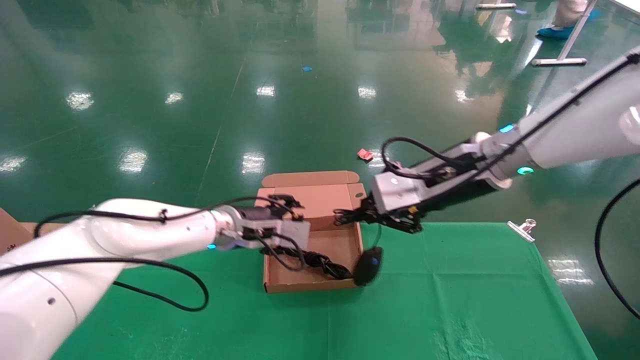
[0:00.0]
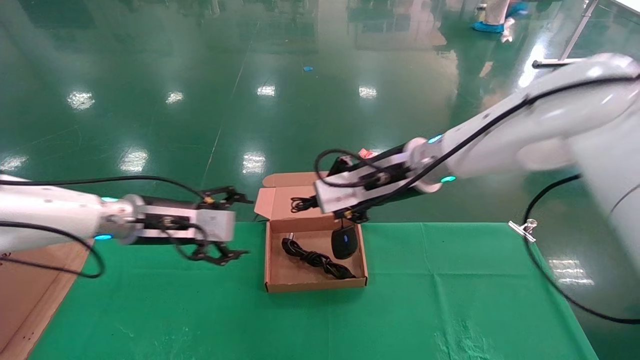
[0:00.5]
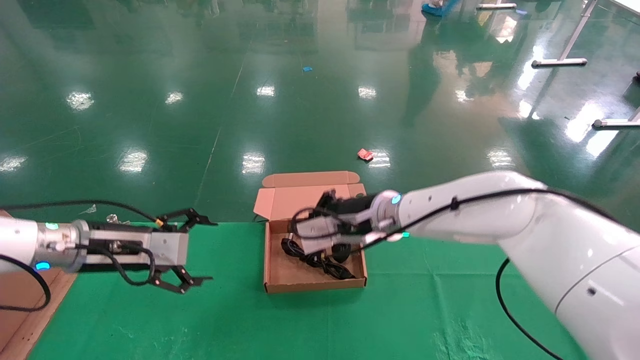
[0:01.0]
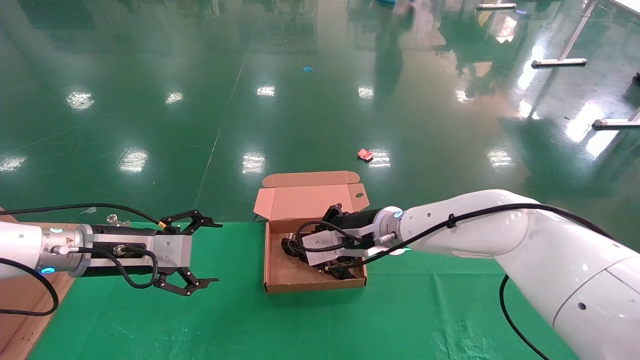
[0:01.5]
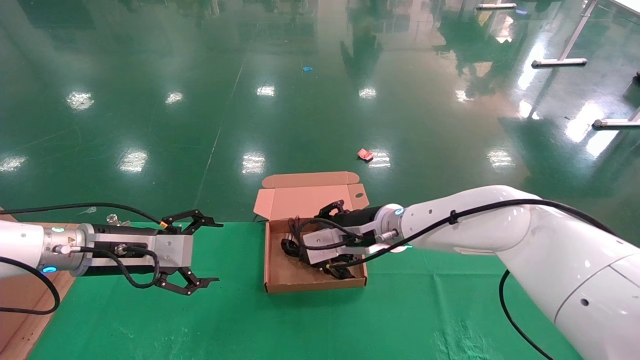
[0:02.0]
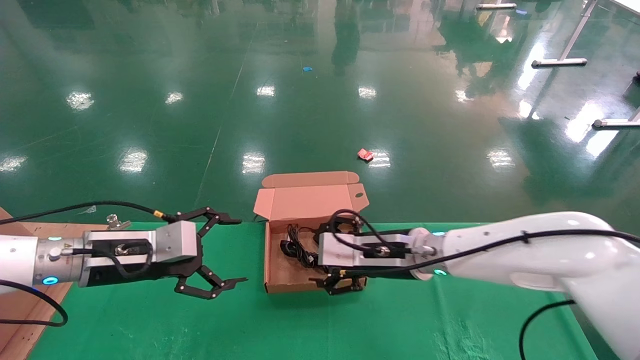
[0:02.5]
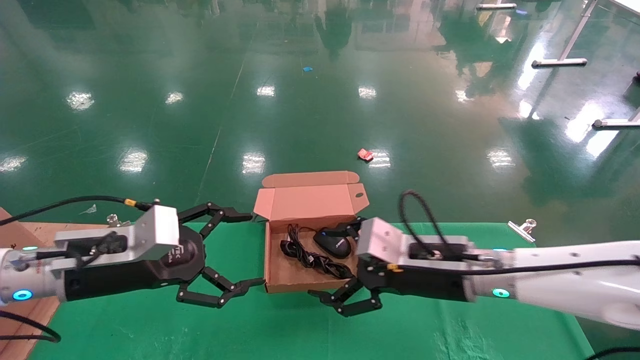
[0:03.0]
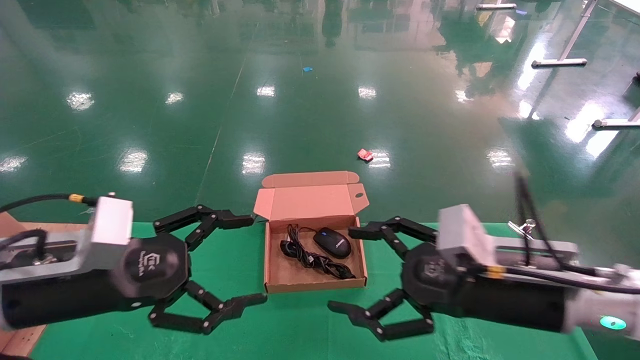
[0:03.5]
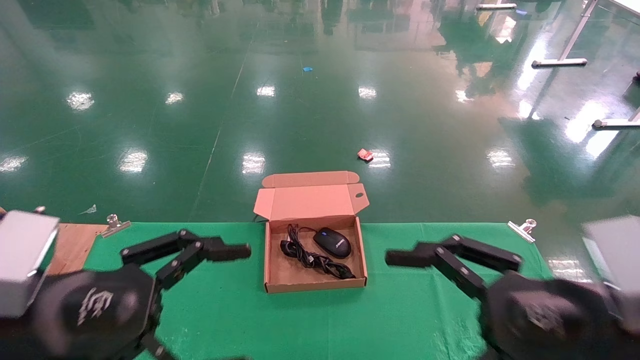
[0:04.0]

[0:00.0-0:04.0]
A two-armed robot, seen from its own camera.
0:00.0 to 0:02.0: The right gripper heads downward, to the left and forward, covering roughly 15 cm; the left gripper is displaced to the left and backward by approximately 20 cm, and opens.
0:02.0 to 0:04.0: The right gripper is displaced backward and to the right by about 30 cm, and opens up, while the left gripper is displaced backward by about 20 cm.

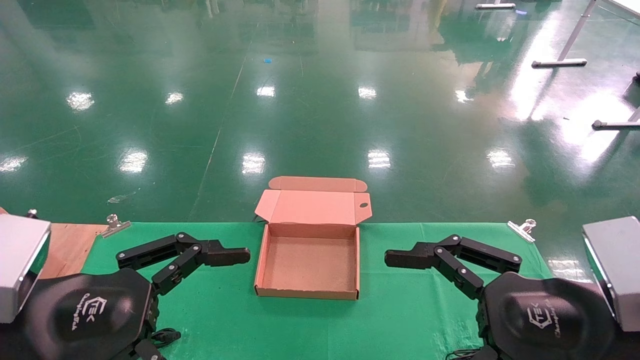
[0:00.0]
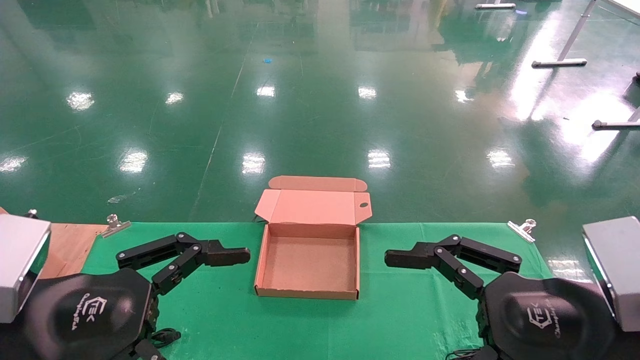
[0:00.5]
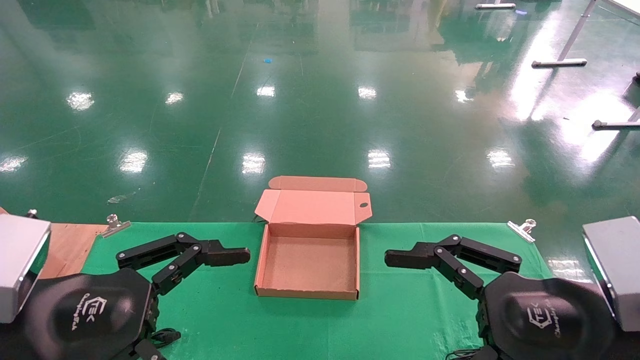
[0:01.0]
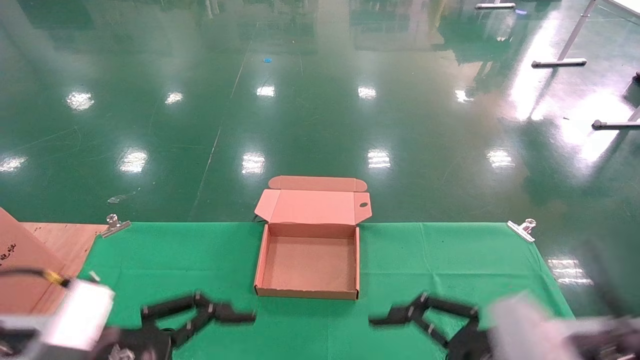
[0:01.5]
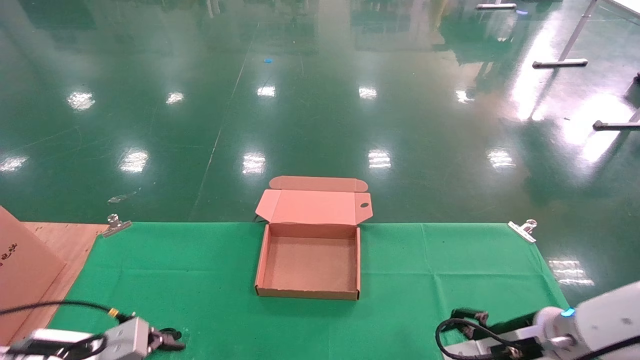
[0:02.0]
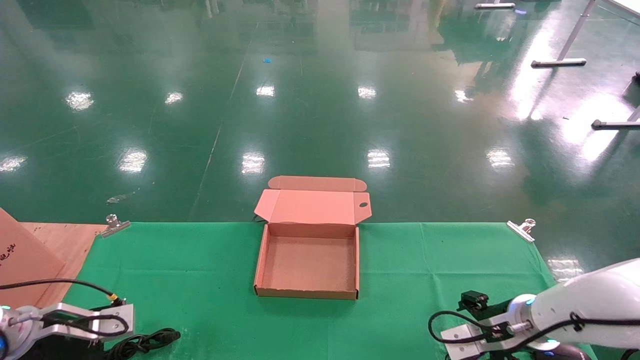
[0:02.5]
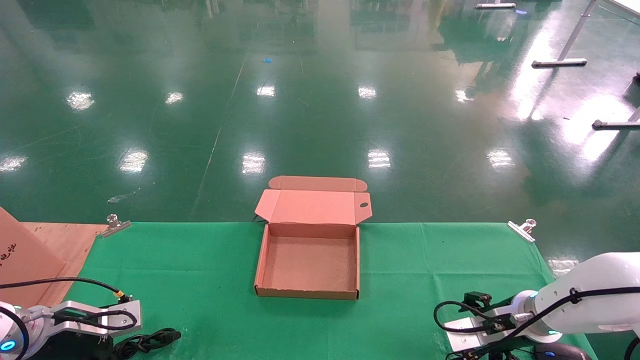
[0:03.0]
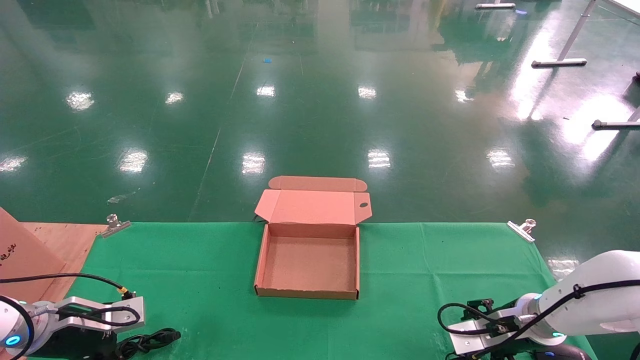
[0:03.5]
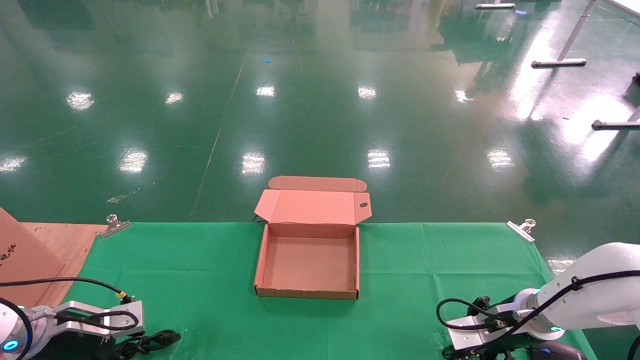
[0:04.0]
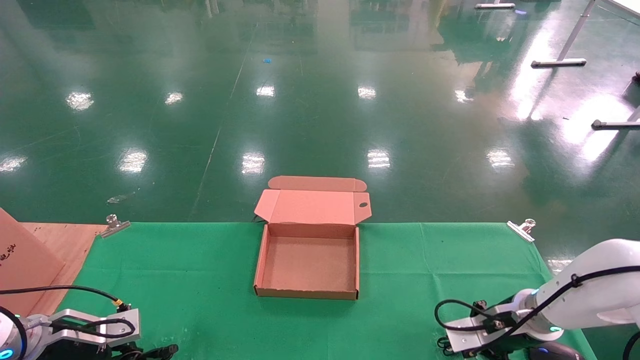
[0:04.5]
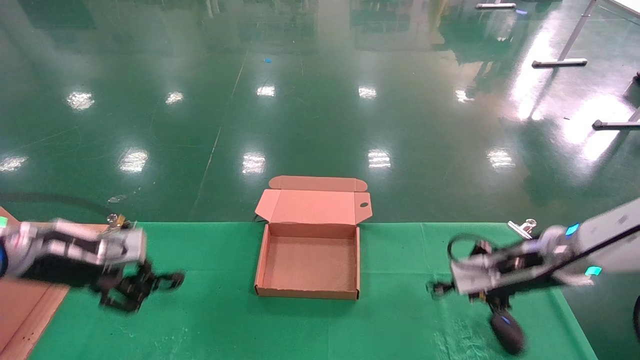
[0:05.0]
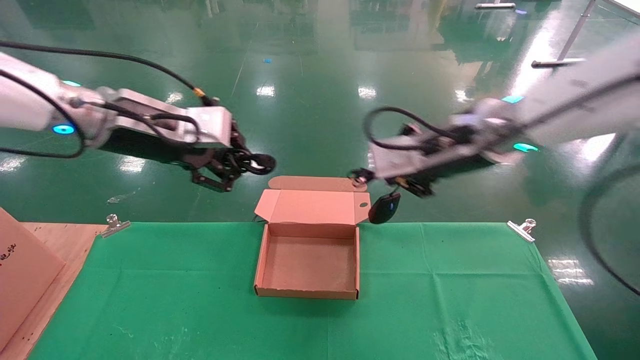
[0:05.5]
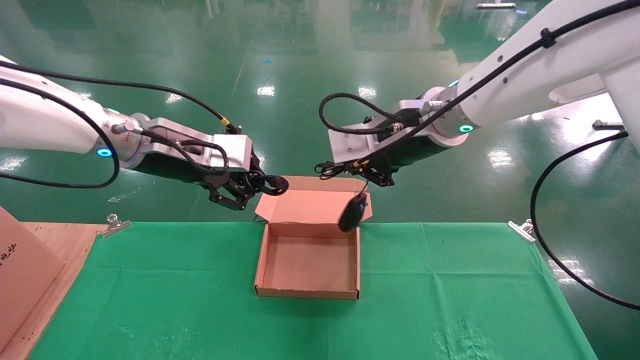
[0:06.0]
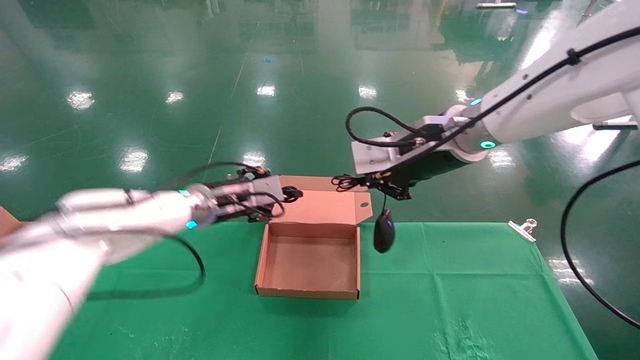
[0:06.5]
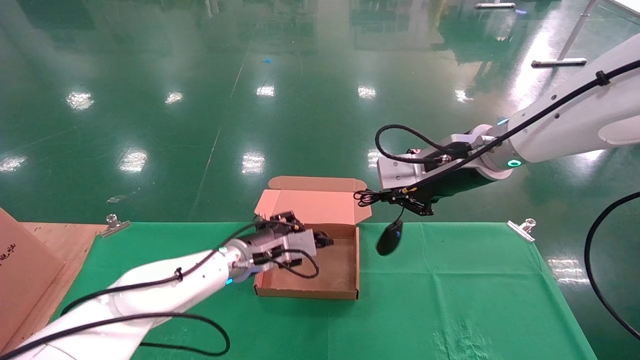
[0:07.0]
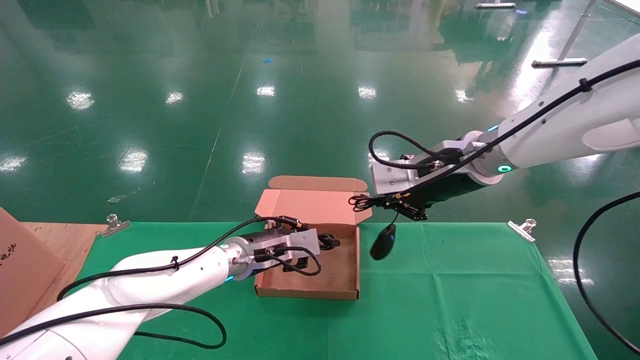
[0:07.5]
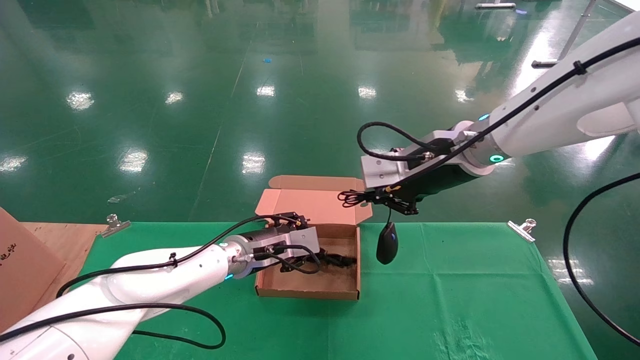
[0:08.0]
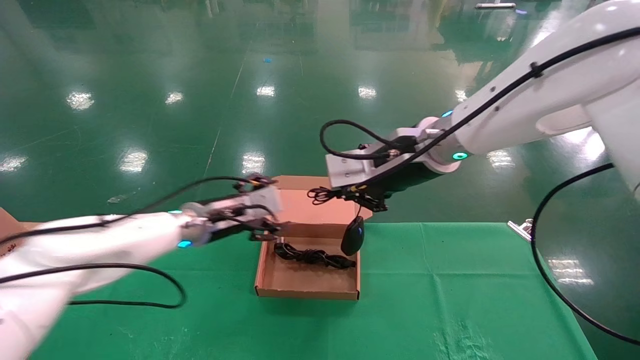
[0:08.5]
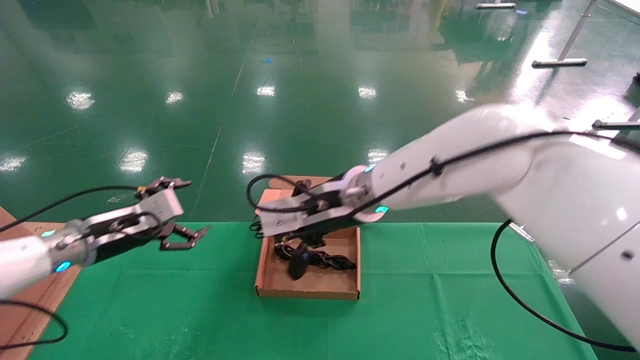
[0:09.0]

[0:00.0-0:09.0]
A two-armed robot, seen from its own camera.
Step, 0:01.5 to 0:05.5: Grab and lift both the mouse and power cord from the accessory packaging area at the same time.
0:00.0 to 0:02.0: The right gripper moves forward and downward, some 20 cm, while the left gripper travels downward, forward and to the left by roughly 20 cm.
0:02.0 to 0:04.5: The right gripper goes roughly 10 cm forward, and closes up. Meanwhile the left gripper heads forward and to the left, covering some 10 cm, and closes.
0:04.5 to 0:07.0: The right gripper travels upward and to the left by some 25 cm; the left gripper goes about 30 cm to the right, and travels upward and back again, roughly 30 cm each way.
0:07.0 to 0:09.0: Both grippers move to the left, about 20 cm. The left gripper opens up.

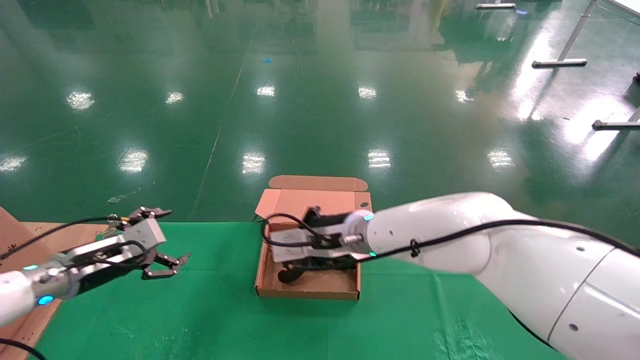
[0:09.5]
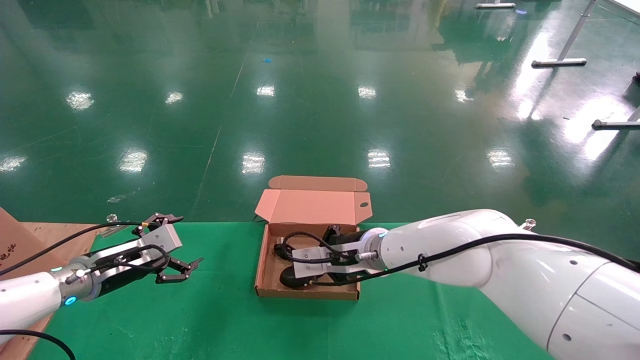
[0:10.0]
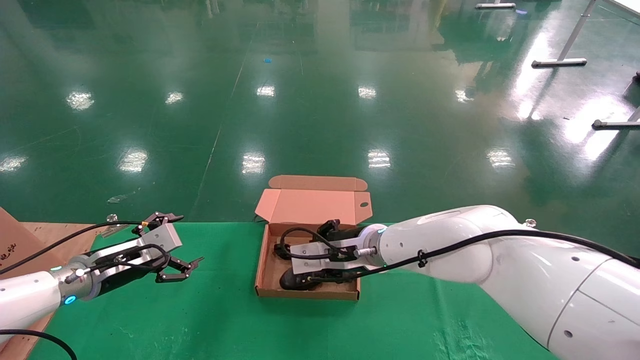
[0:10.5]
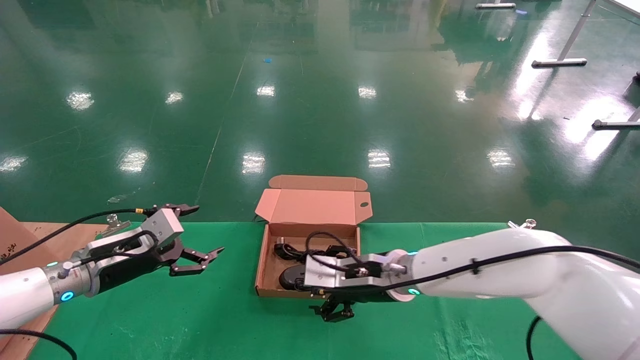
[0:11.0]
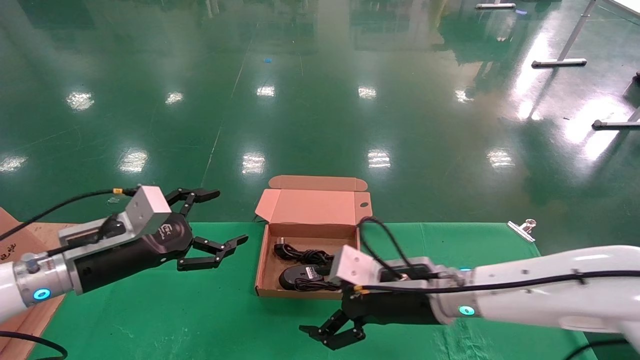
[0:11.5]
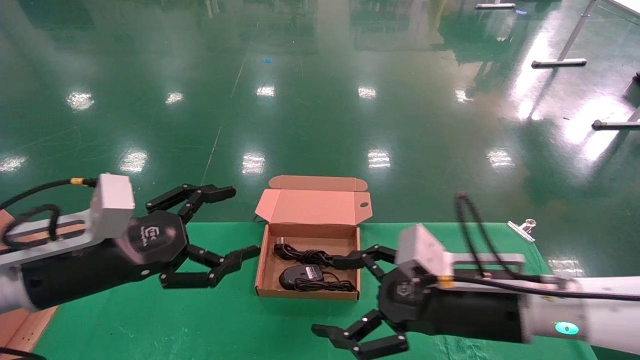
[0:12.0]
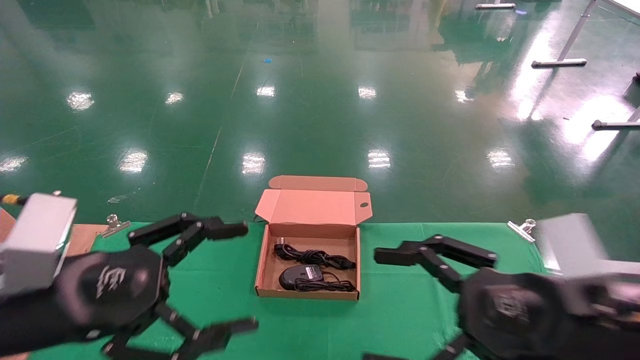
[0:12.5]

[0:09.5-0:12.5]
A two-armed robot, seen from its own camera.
Step, 0:09.5 to 0:11.5: Place the mouse and power cord into the box.
0:09.5 to 0:11.0: The right gripper goes about 10 cm downward and to the right, and opens its fingers.
0:11.0 to 0:12.5: The right gripper shifts about 25 cm backward and to the right. Meanwhile the left gripper goes approximately 20 cm backward and upward.
